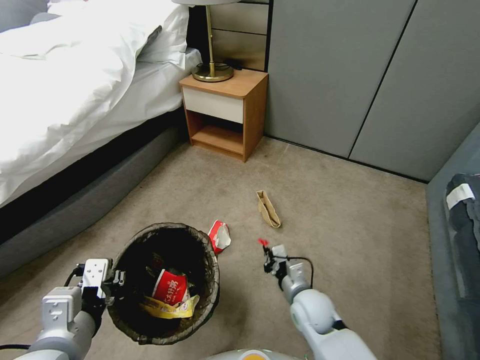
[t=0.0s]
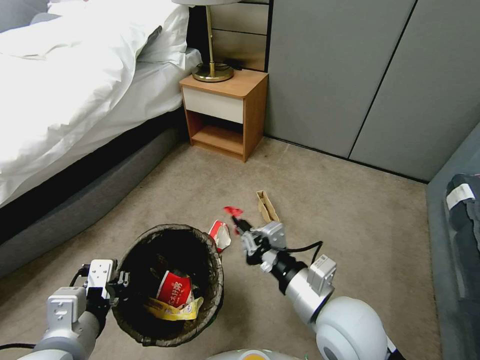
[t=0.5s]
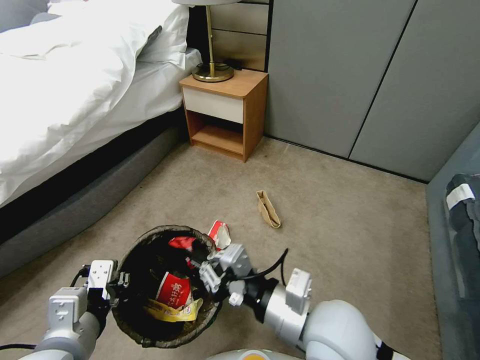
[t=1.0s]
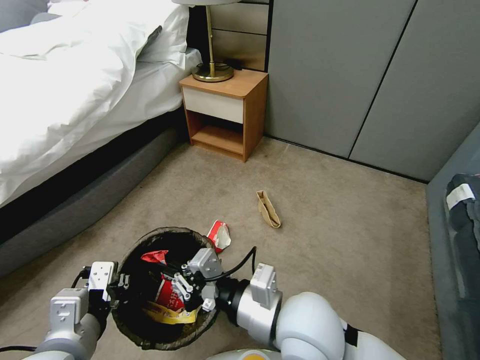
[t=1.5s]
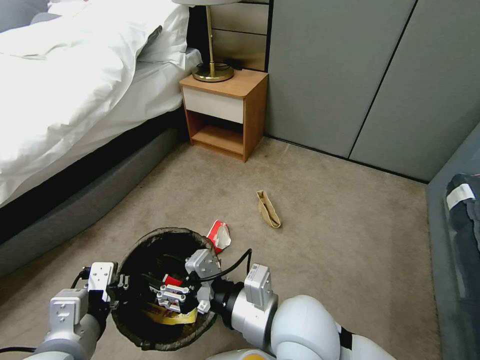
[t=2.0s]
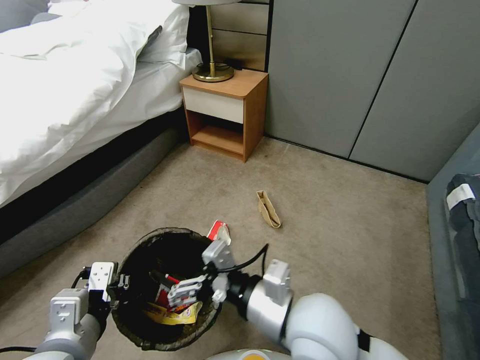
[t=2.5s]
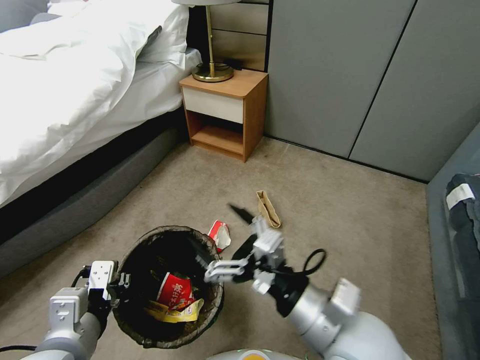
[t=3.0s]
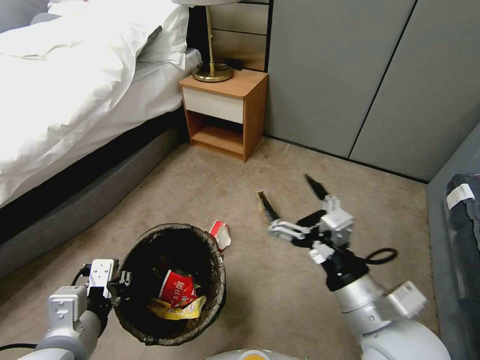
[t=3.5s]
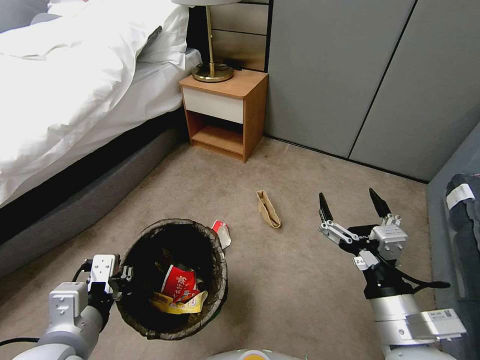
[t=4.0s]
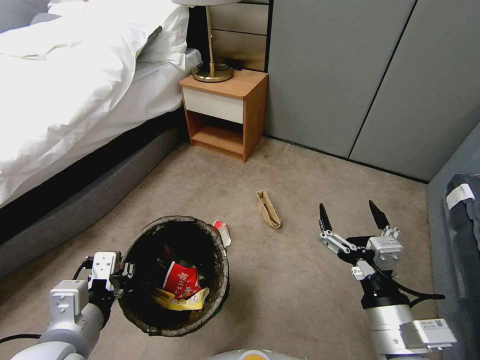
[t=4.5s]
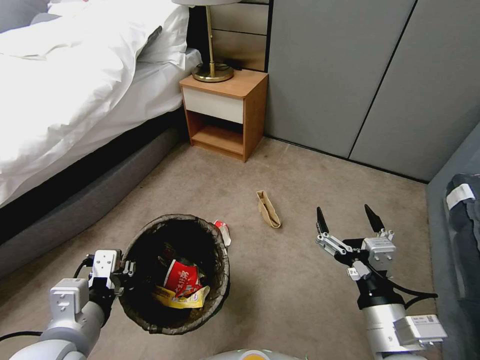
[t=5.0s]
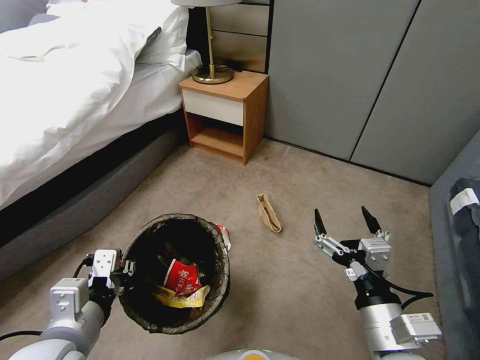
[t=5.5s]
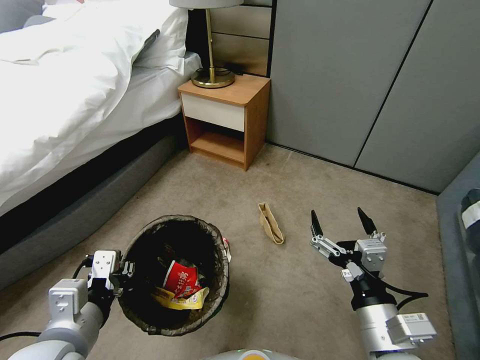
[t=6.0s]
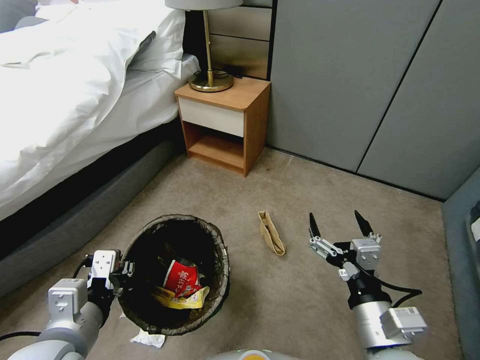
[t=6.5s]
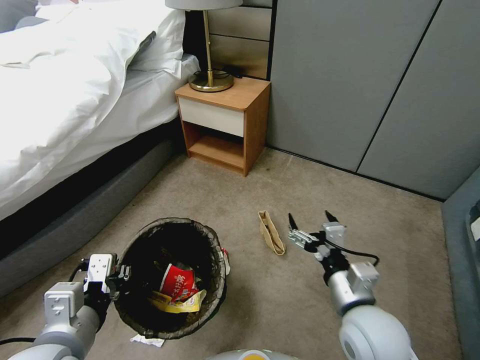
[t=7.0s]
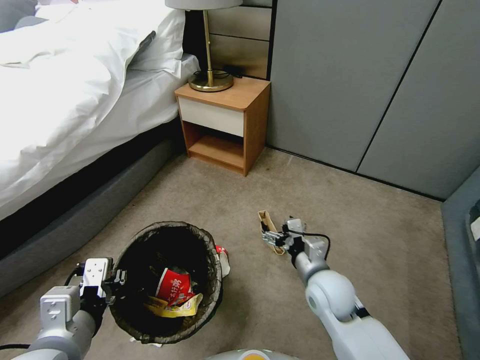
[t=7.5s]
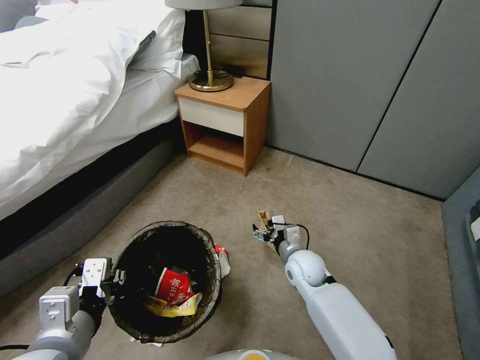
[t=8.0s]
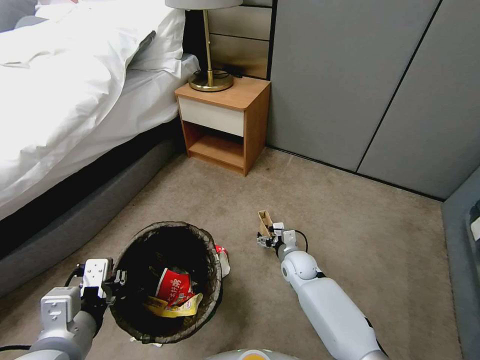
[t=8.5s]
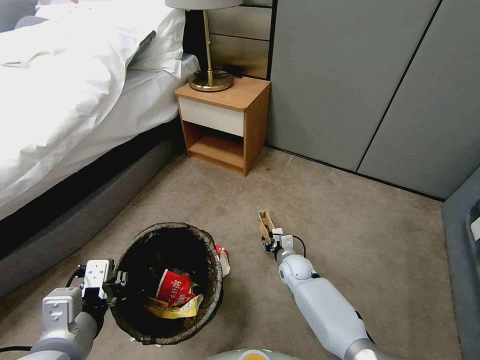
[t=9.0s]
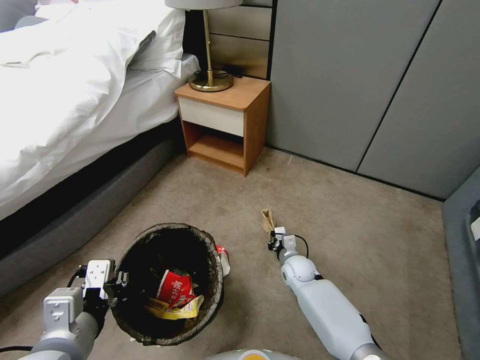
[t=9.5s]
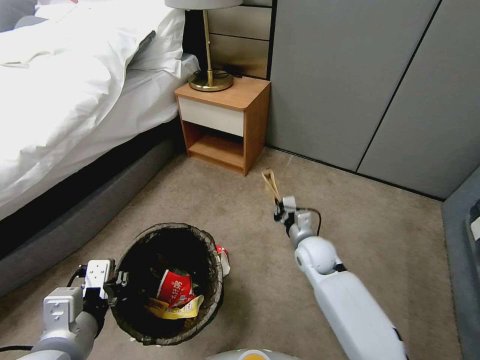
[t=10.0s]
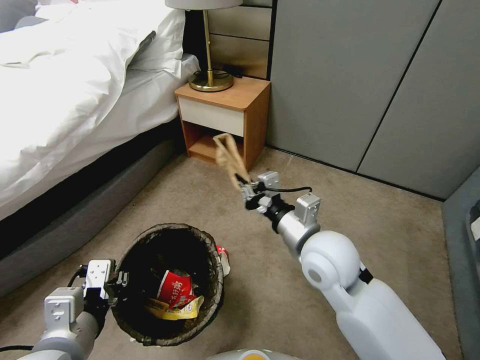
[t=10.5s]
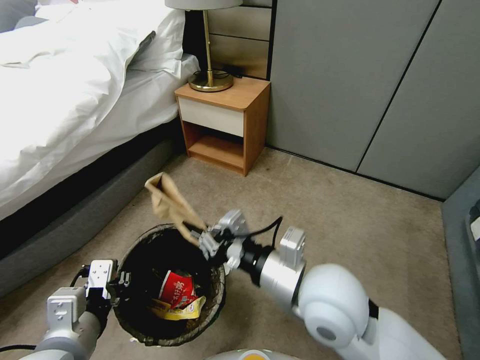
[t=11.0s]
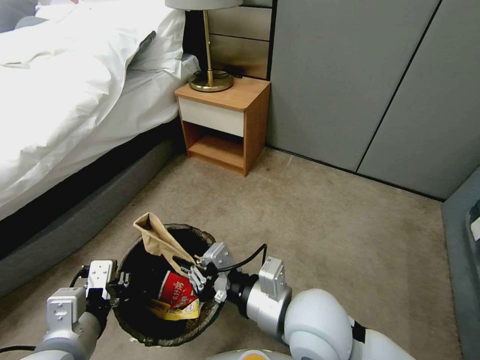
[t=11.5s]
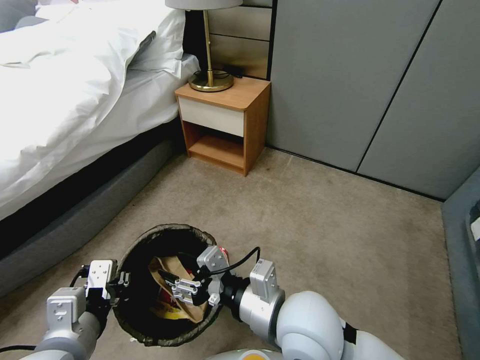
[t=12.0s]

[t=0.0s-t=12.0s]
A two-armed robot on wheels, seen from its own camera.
Task of the whole recording: Pick up the trash bin, then pick up the garbage from the floor and place it into the trash bin.
t=0.0s to t=2.0s: The right gripper travels upward and to the left by some 25 cm, and opens.
t=2.0s to t=4.0s: The right gripper is displaced to the right by roughly 15 cm, and opens up.
t=6.0s to t=8.0s: The right gripper travels forward and downward by some 30 cm.
t=8.0s to t=10.0s: The right gripper reaches approximately 10 cm downward, then returns, and closes up.
t=10.0s to t=12.0s: The right gripper goes roughly 30 cm backward, upward and to the left, and opens its fingers.

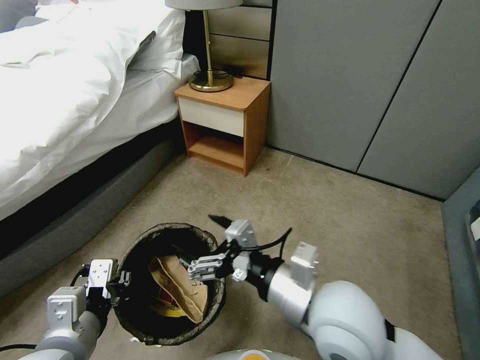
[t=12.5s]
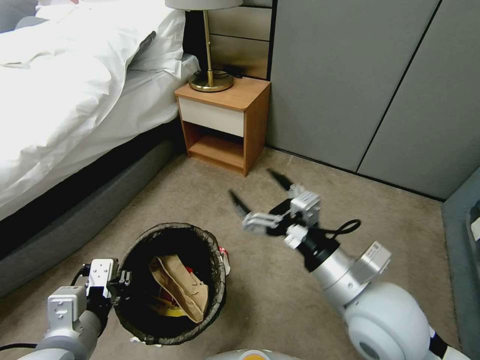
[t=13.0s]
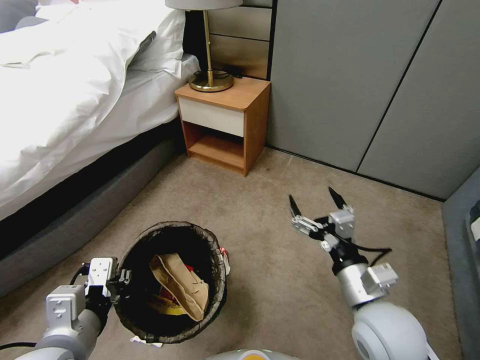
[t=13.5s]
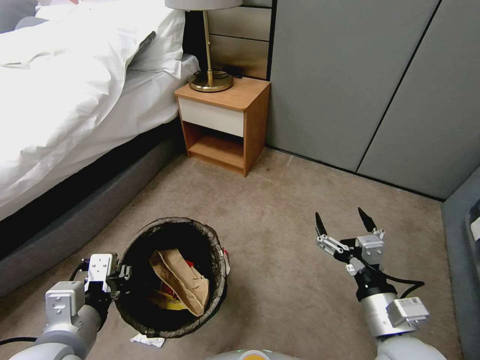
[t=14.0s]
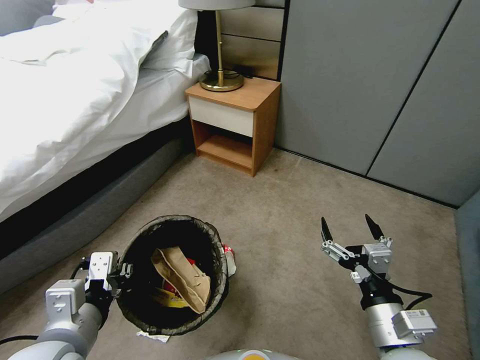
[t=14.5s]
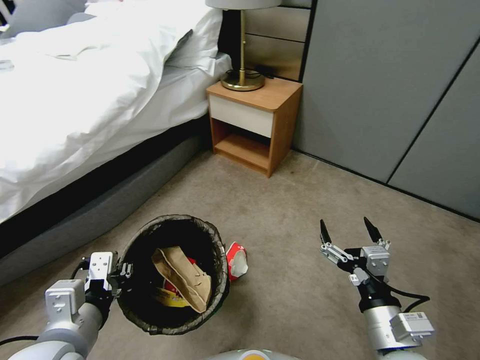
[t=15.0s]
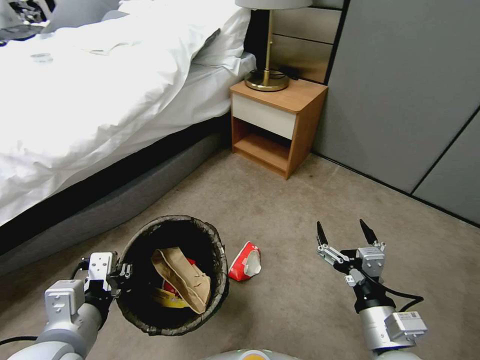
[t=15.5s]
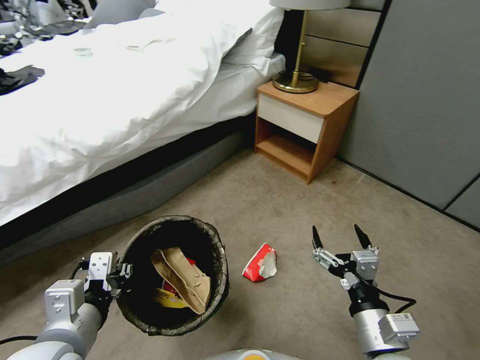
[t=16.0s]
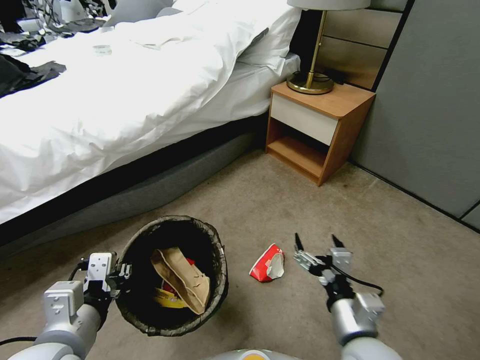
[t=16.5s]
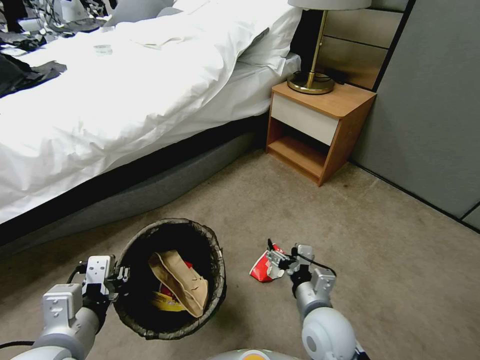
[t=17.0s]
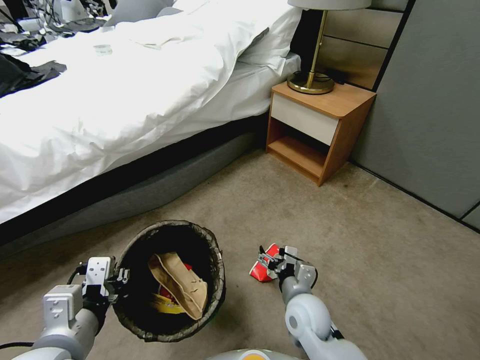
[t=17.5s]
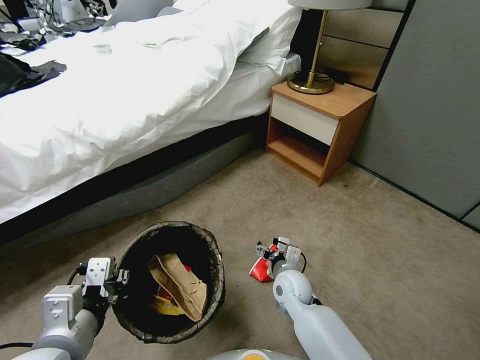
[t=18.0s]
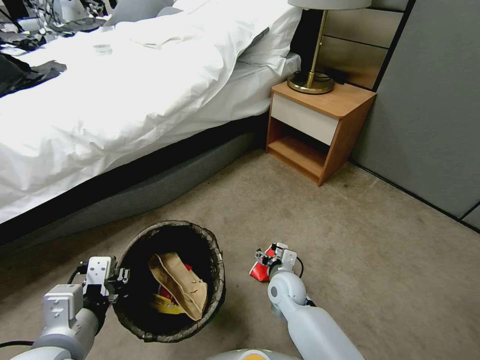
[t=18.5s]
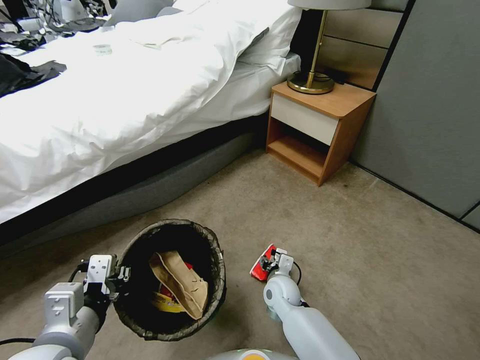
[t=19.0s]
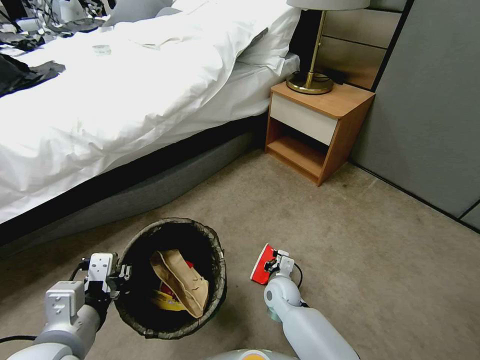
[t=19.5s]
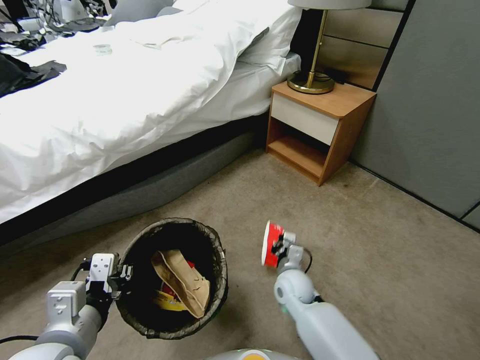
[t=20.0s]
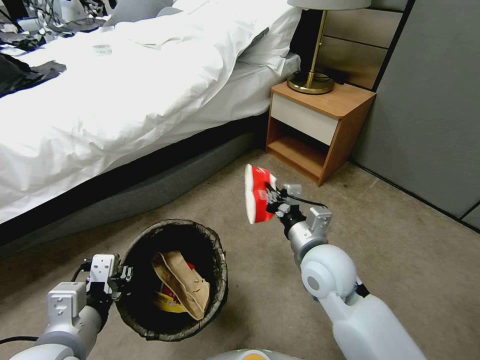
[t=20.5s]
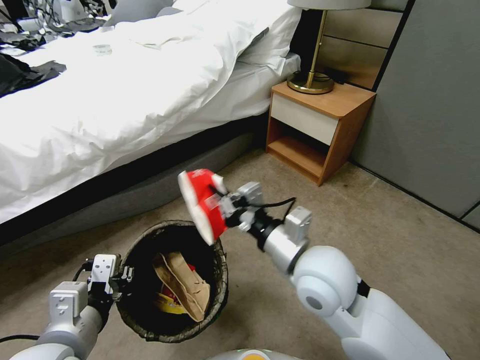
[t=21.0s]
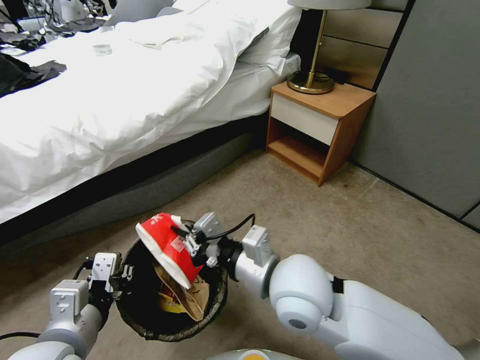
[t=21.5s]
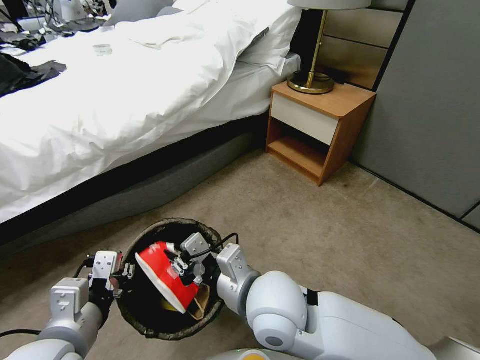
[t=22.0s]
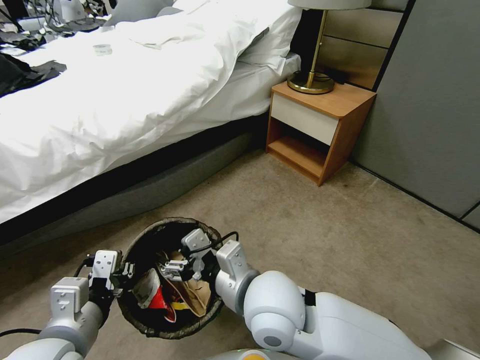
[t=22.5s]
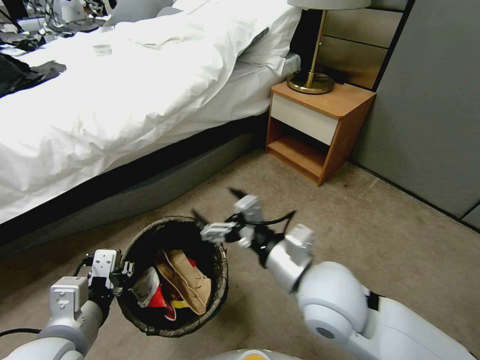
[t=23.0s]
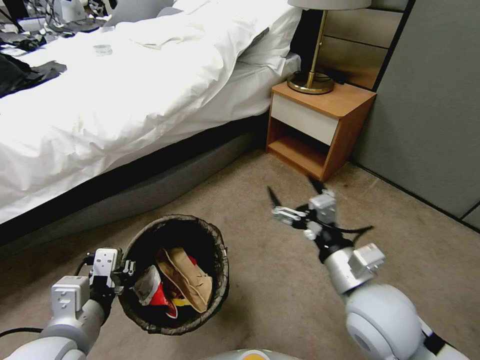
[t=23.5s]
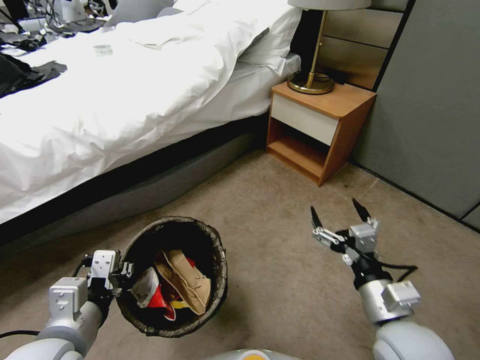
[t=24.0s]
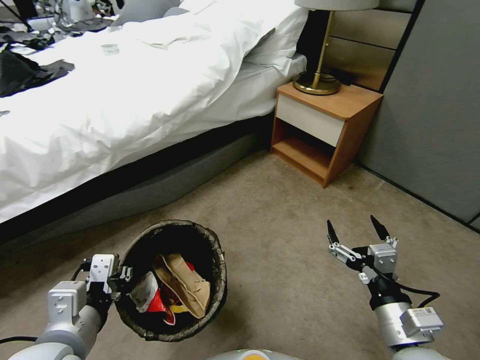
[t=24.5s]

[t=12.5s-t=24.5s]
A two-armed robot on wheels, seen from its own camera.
Task of the whole recording: Pick up the trash bin, then pick up the garbage from the floor and place it into the trash bin.
t=12.5s to t=14.5s: The right gripper shifts some 15 cm to the right, downward and backward.
t=14.5s to t=16.5s: The right gripper ends up roughly 5 cm from where it was.
t=16.5s to t=18.5s: The right gripper is displaced forward, downward and to the left by about 25 cm.
t=18.5s to t=20.5s: The right gripper moves upward, some 20 cm, and closes its fingers.
t=20.5s to t=22.5s: The right gripper moves to the left and backward, about 15 cm, and opens its fingers.
t=22.5s to t=24.5s: The right gripper moves to the right, roughly 25 cm.

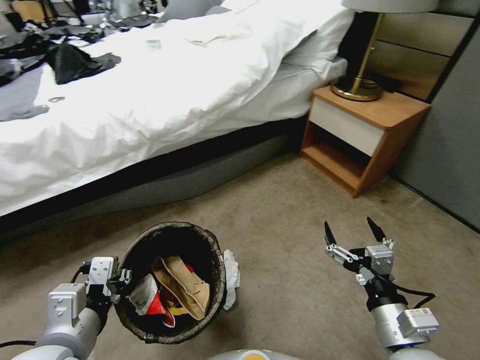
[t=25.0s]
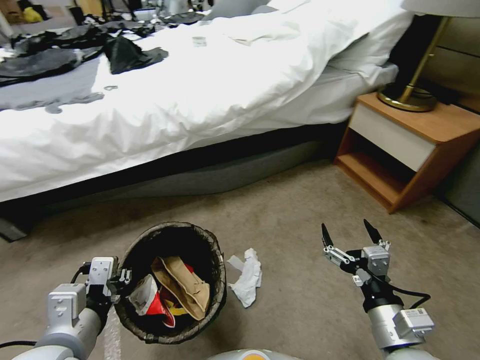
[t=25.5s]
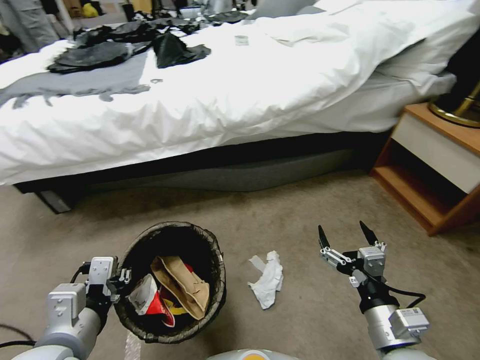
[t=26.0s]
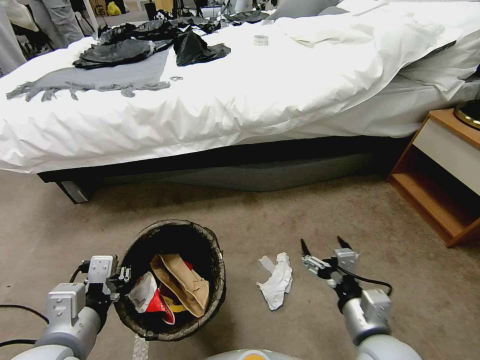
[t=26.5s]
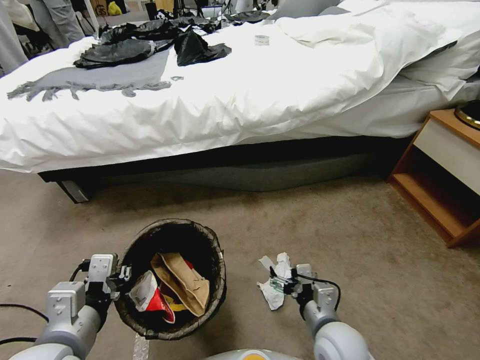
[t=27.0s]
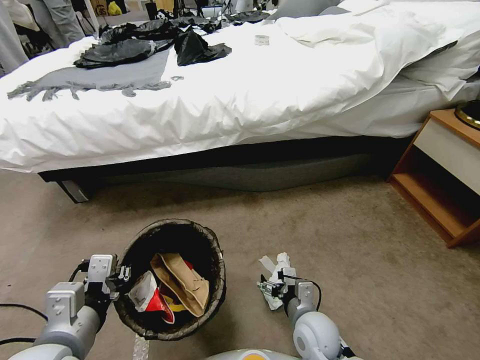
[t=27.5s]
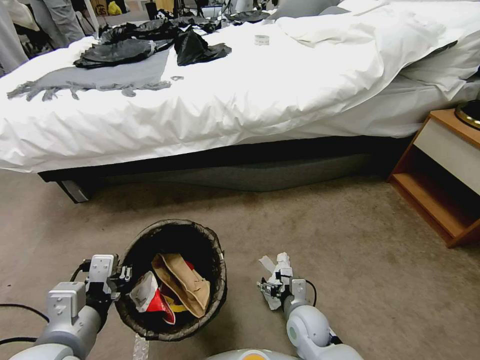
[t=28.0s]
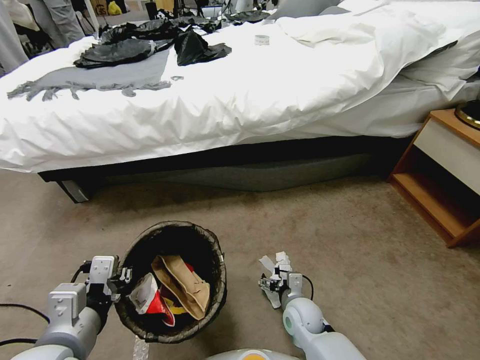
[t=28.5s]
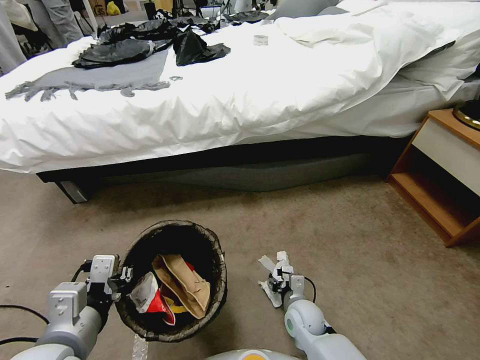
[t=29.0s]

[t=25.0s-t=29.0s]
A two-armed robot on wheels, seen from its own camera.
Task of the whole recording: Pick up the trash bin, then pick up the garbage from the floor and place it into the trash bin.
t=25.0s to t=27.0s: The right gripper is displaced downward, to the left and forward by roughly 15 cm.
t=27.0s to t=29.0s: The right gripper shifts some 15 cm downward and forward.
